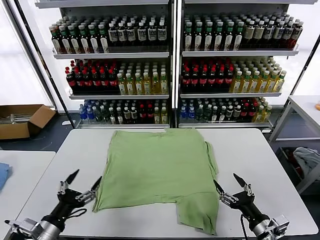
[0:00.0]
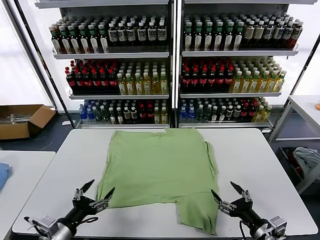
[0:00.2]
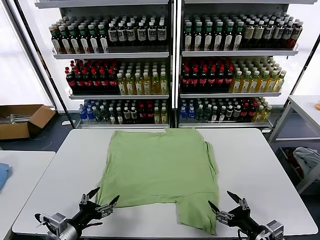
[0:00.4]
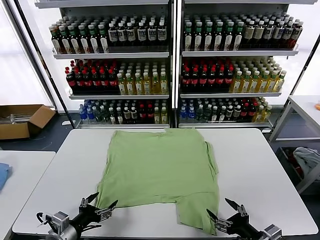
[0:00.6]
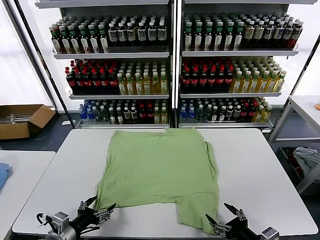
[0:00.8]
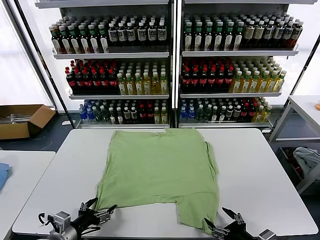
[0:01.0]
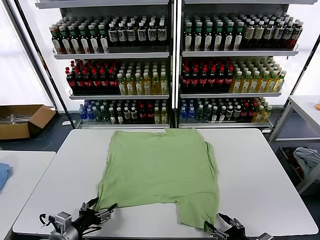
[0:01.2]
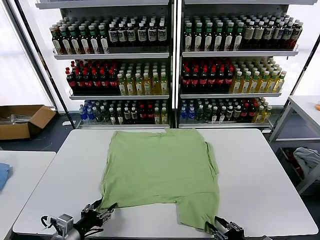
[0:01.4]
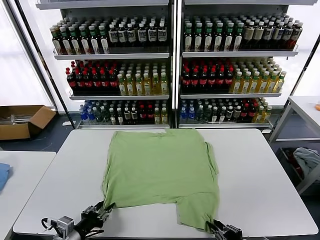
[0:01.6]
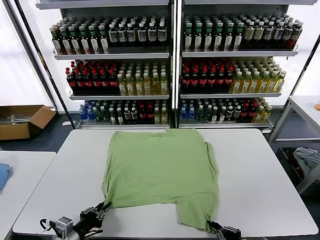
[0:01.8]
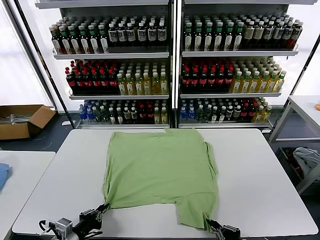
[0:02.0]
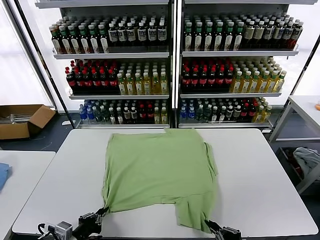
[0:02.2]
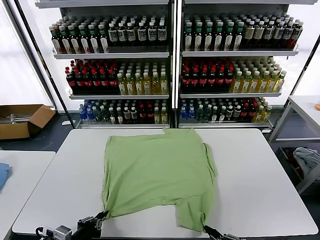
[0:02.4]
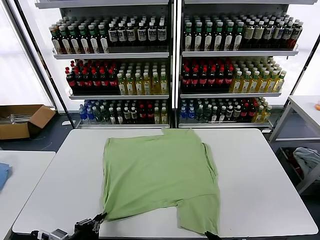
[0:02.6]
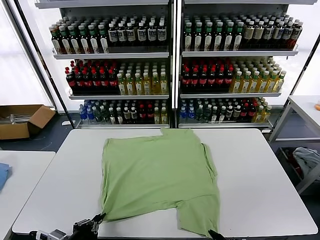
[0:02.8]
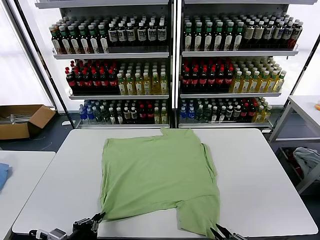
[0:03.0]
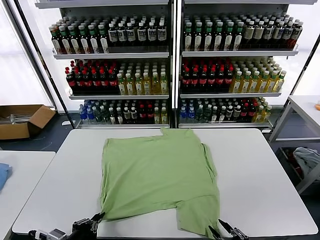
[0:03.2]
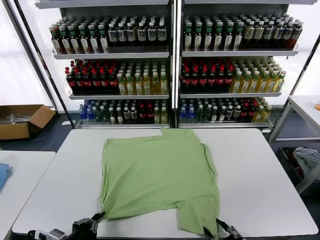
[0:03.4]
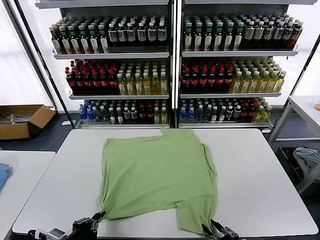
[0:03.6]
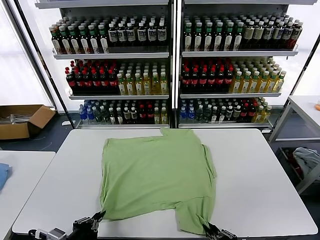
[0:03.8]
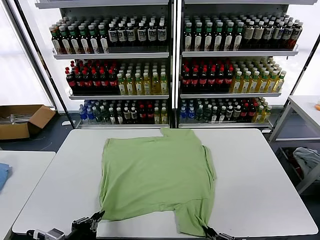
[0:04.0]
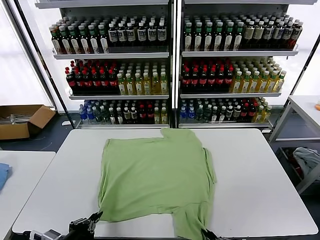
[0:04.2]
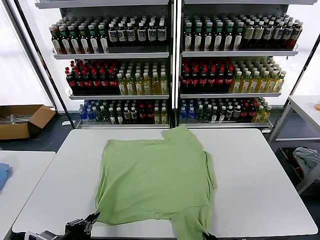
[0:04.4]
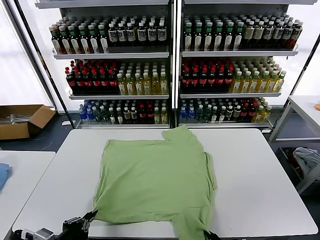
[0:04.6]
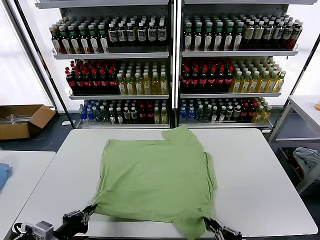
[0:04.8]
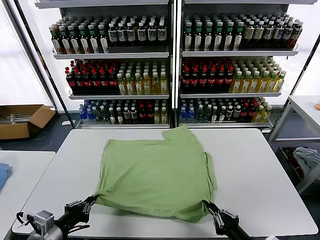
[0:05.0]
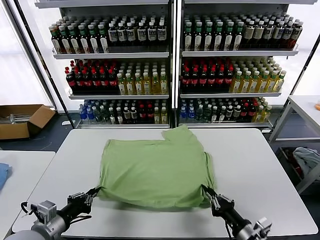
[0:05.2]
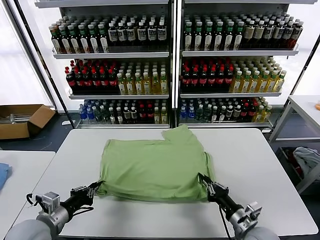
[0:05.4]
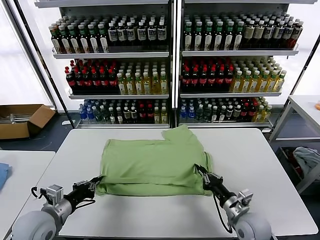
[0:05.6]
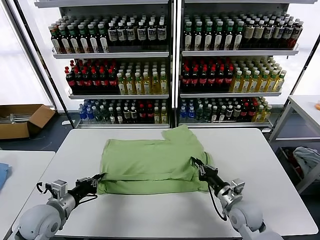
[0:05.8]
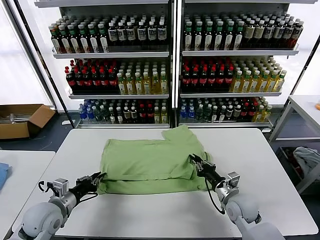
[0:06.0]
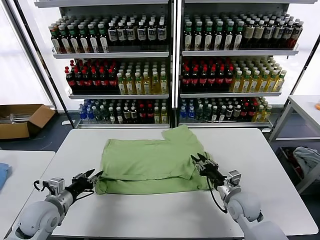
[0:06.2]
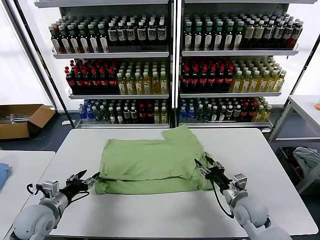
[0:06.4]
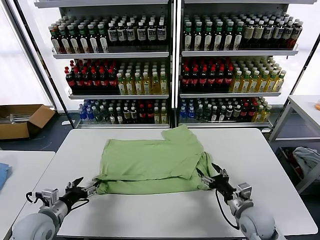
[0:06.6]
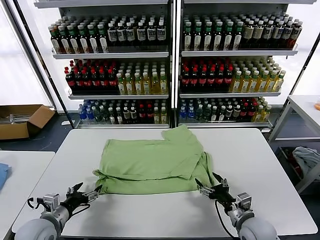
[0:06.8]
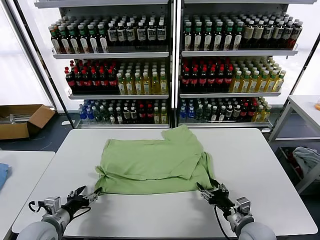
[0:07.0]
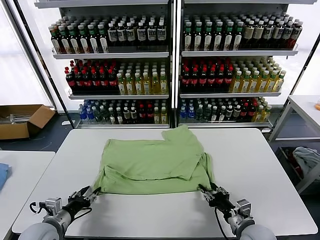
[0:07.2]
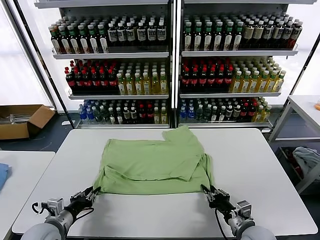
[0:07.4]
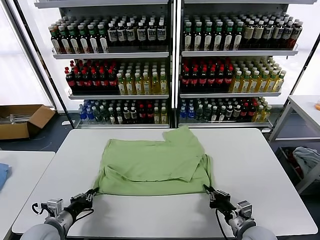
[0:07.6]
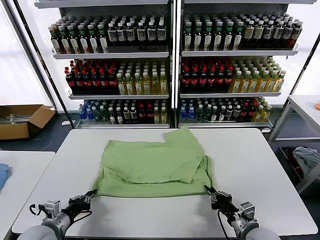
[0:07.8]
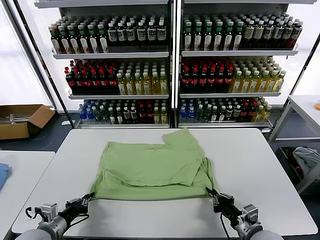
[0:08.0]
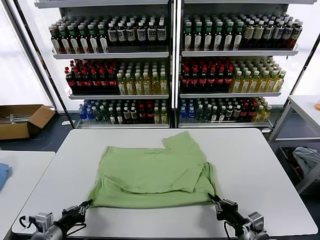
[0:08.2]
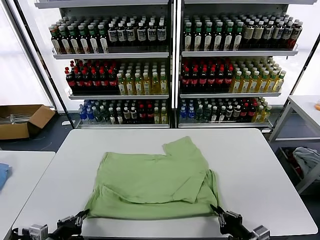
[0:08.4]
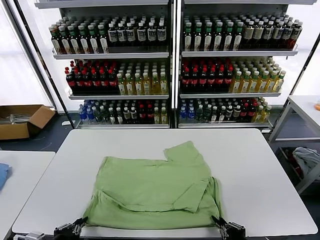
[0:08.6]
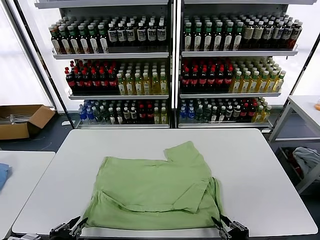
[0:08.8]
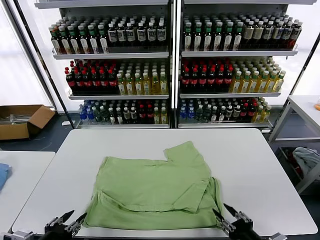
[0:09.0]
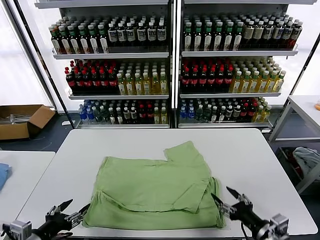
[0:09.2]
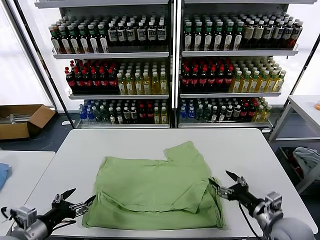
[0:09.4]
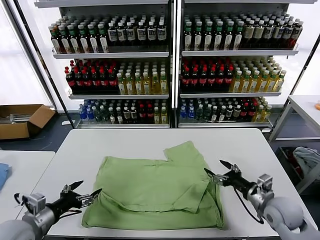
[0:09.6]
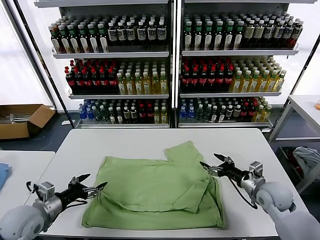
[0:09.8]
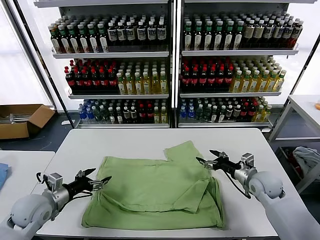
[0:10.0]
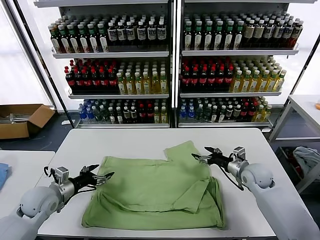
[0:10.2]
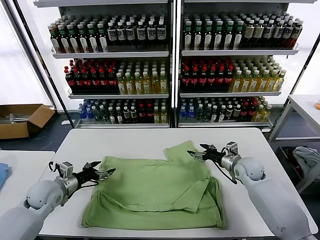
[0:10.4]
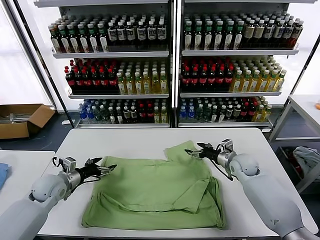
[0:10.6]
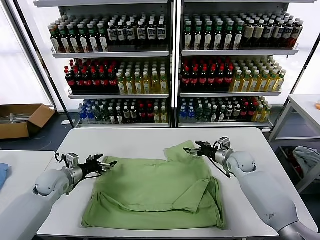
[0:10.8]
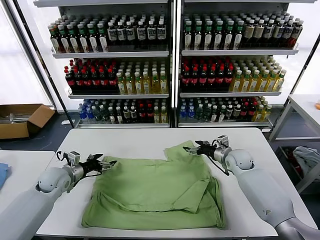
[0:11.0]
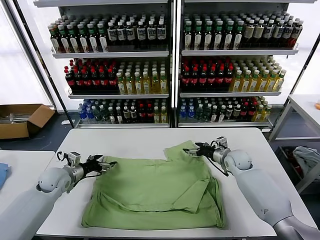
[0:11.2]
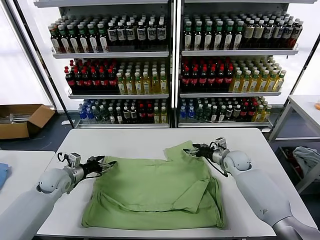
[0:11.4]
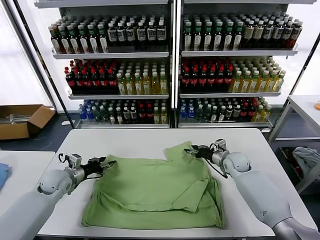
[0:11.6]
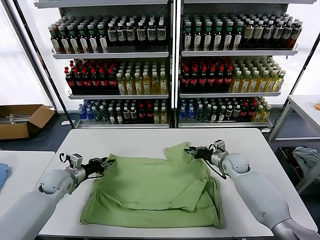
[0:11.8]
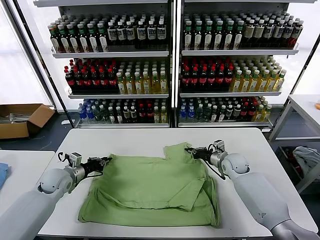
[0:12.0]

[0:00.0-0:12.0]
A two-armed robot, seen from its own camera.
Task of the whole recording: fold and organize the clothes.
Step, 0.0 to 1.8 s: use both grippers simultaneously to clamp the lower edge of the clothing fabric.
Step, 2.2 to 6.4 s: use both grippers to drag the lower edge of the fabric forward and fold it over the upper edge.
Step, 6.6 to 9.0 s: Drag the clothes downward with both gripper.
Step, 9.2 to 12.0 s: use both grippers simultaneously to clamp the upper edge of the clothing fabric.
1.6 to 3.0 s: The left gripper shifts by roughly 5 cm, and closes its fingers.
3.0 to 4.4 s: The right gripper closes its fingers.
4.4 to 6.0 s: The left gripper travels forward by roughly 15 cm; the right gripper goes approximately 30 cm forward.
6.0 to 7.6 s: The right gripper goes about 10 cm backward, and opens, then closes again. Meanwhile the left gripper shifts by roughly 5 cm, and opens and closes again.
7.6 to 9.0 s: The two grippers go about 15 cm backward and upward. The left gripper opens its fingers; the right gripper opens up.
9.0 to 10.4 s: The grippers both shift forward by about 30 cm. The right gripper opens up. Meanwhile the left gripper opens up.
10.4 to 12.0 s: The right gripper closes its fingers. The left gripper goes about 5 cm forward, and closes its fingers.

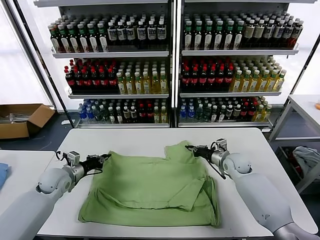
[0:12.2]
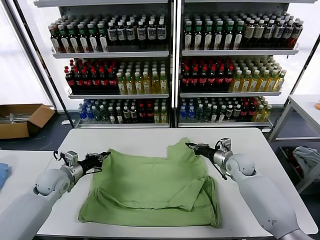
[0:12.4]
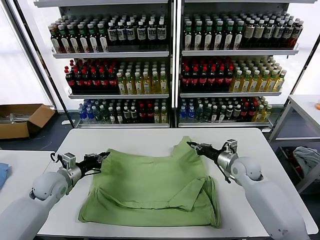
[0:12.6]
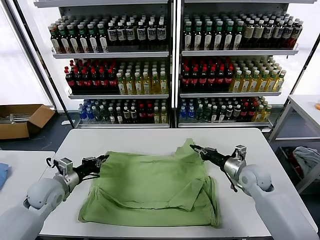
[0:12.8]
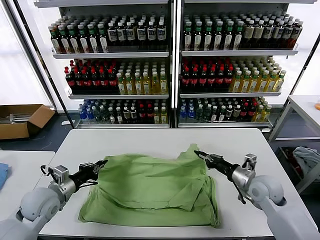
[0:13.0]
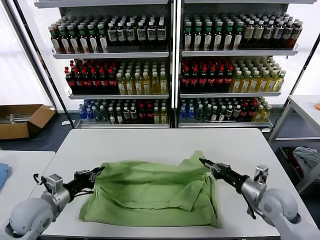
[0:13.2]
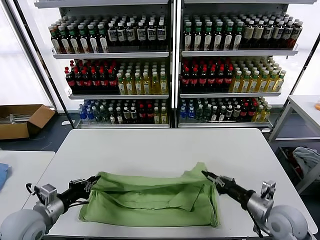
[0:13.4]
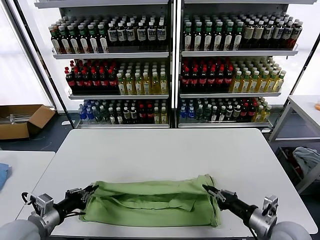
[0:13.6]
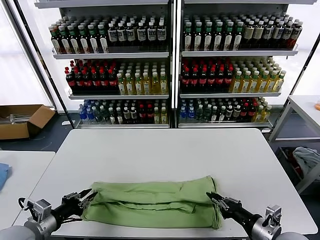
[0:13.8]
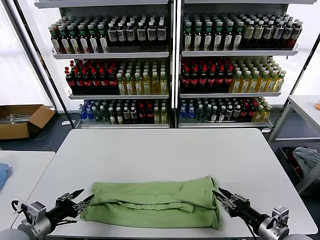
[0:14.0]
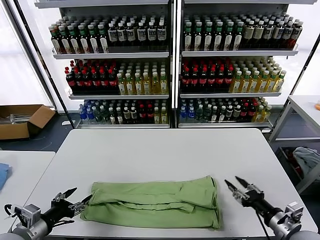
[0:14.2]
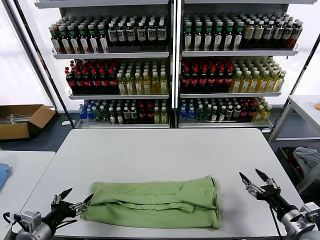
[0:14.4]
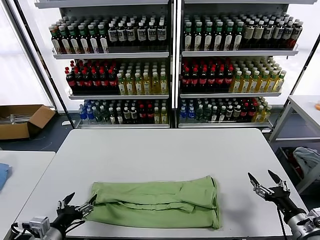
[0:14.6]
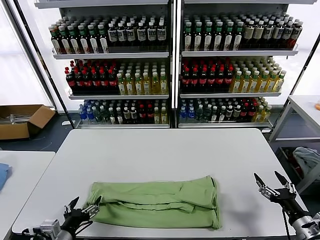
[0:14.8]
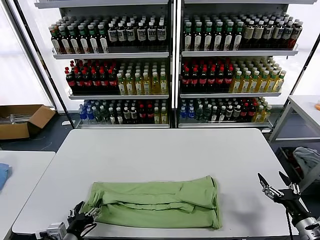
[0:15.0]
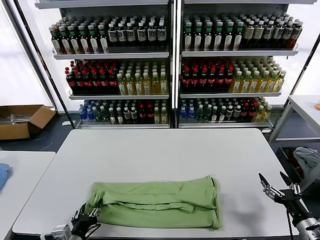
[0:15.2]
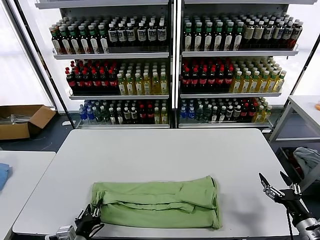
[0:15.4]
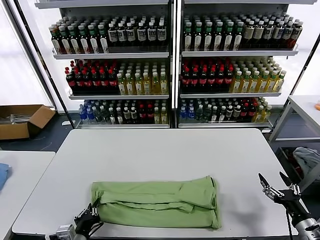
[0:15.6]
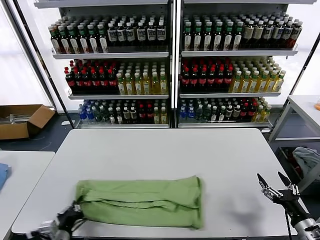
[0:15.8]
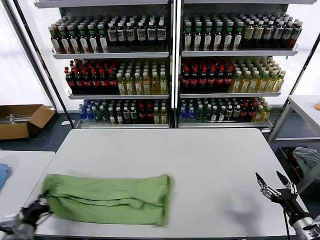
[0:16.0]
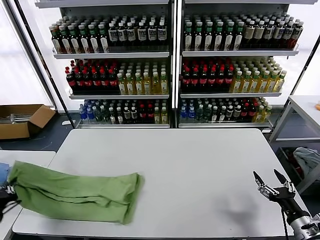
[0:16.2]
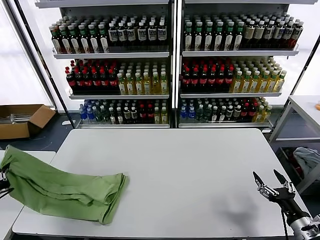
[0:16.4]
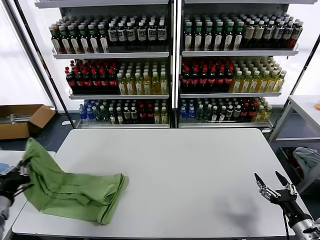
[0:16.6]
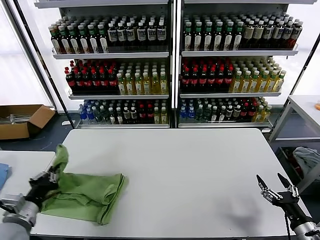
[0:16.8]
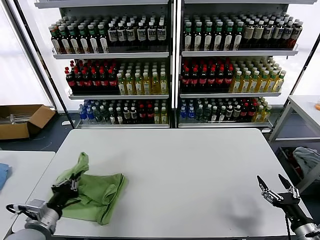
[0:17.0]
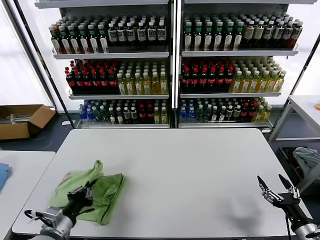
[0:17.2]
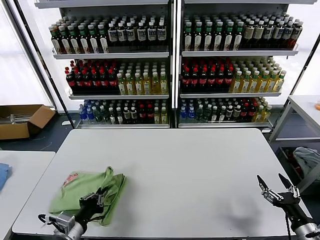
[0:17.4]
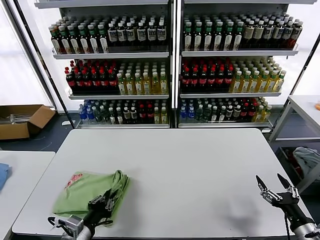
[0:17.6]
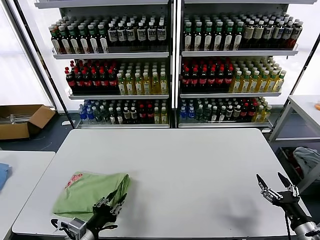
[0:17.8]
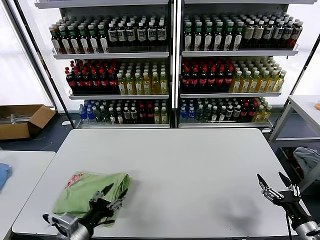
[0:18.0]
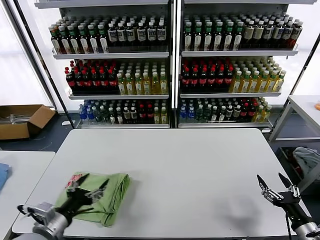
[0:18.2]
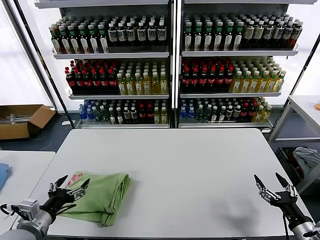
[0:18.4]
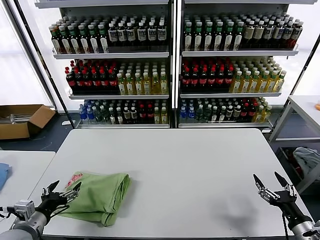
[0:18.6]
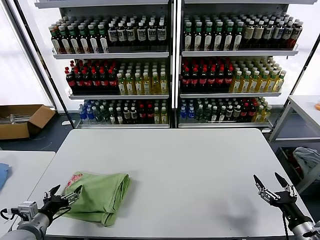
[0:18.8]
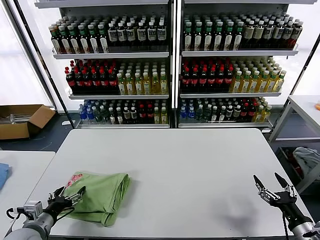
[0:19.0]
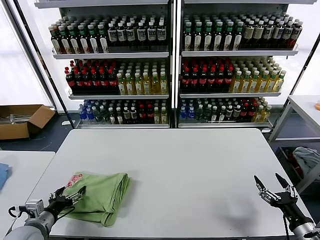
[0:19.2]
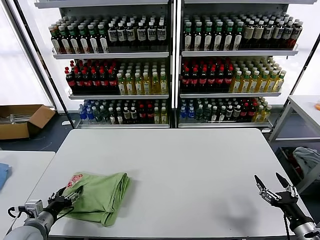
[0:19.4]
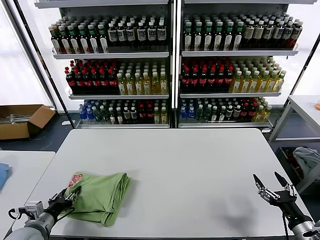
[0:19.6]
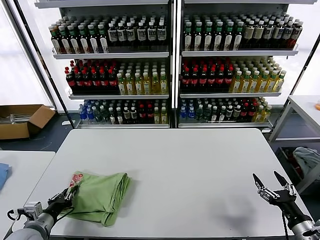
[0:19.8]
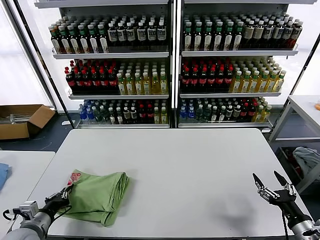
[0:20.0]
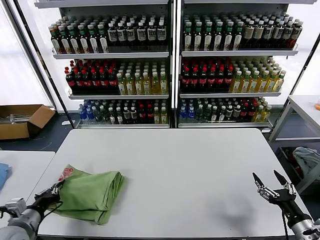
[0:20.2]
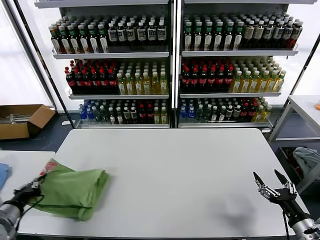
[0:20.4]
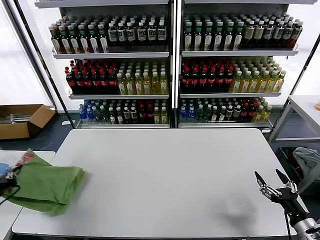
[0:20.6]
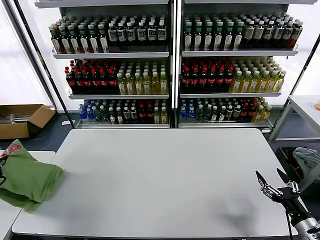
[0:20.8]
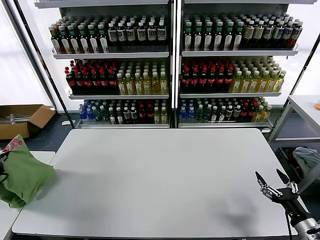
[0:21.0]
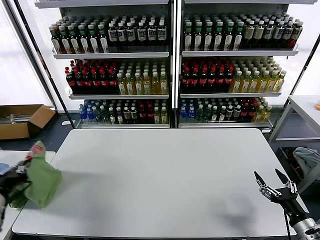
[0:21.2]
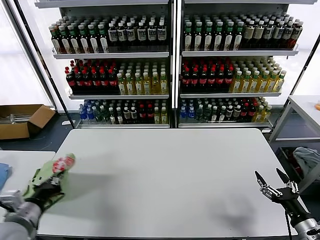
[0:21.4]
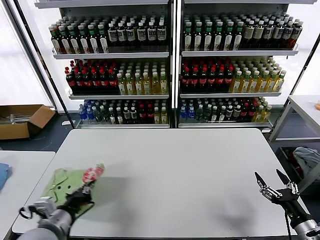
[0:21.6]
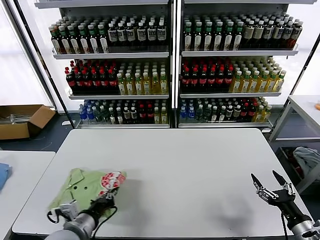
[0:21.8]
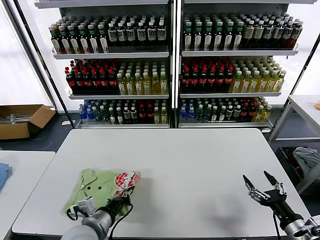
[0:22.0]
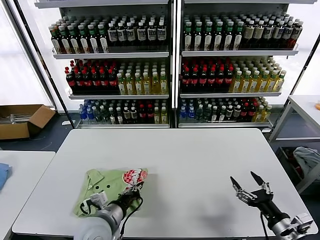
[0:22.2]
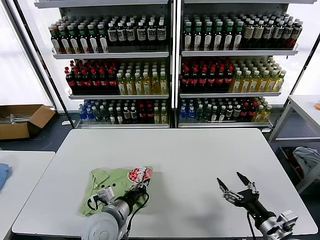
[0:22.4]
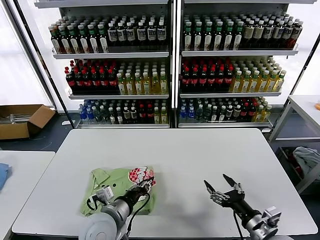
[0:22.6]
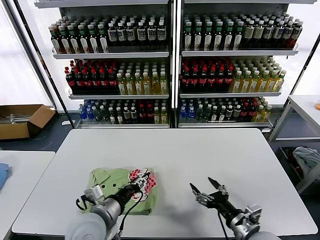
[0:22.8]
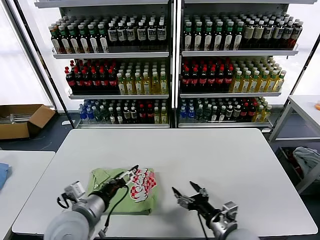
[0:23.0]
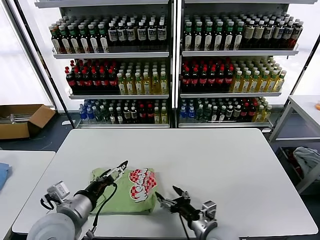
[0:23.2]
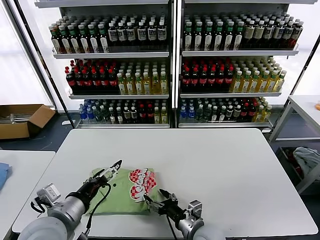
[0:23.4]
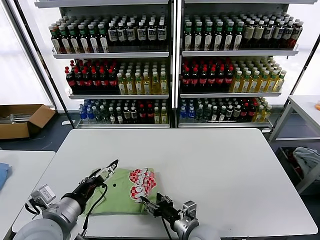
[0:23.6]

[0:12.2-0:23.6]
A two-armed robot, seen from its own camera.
Task of the whole recording: fold and organize the clothes.
Step, 12.2 to 14.0 s: use both grippers to drag the upper edge of the fabric backward and fold it over the lower edge.
Step, 14.2 to 15.6 s: use the left gripper to clamp the left edge of the fabric.
Step, 15.8 to 17.8 s: use the left gripper to drag the left edge of the fabric to the left and folds it over the right edge.
Step, 18.0 to 22.6 s: Flip the folded clothes over with left gripper.
12.2 to 13.6 s: The two grippers go approximately 25 cm backward.
13.6 to 15.0 s: The left gripper shifts roughly 10 cm to the right, downward and backward, and opens its fingers. The right gripper heads to the right, covering about 10 cm, and opens up.
15.0 to 16.4 s: The left gripper is displaced to the left and upward by some 25 cm, and closes up.
16.4 to 17.8 s: The left gripper shifts about 25 cm to the right, and opens up.
17.8 to 19.4 s: The left gripper heads to the left, covering about 15 cm, and opens its fingers.
19.4 to 20.8 s: The left gripper goes roughly 20 cm upward and to the left, and closes.
20.8 to 22.2 s: The left gripper goes approximately 35 cm to the right. The right gripper is displaced to the left by approximately 5 cm.
22.2 to 23.6 s: The left gripper moves upward and to the left, some 10 cm, and opens. Meanwhile the right gripper heads to the left, covering about 25 cm.
